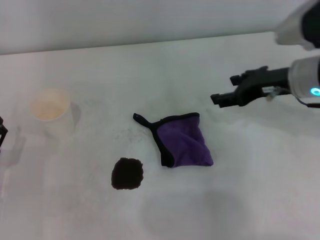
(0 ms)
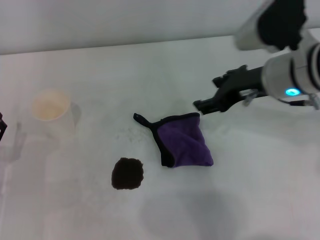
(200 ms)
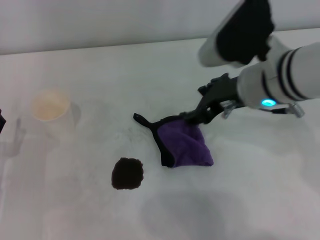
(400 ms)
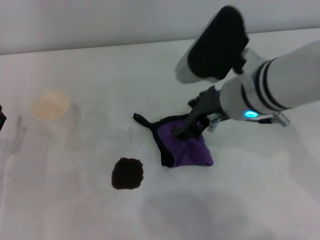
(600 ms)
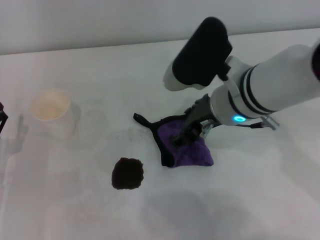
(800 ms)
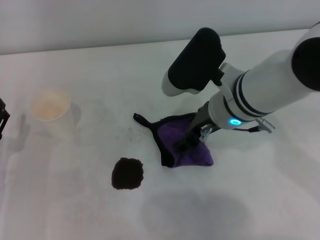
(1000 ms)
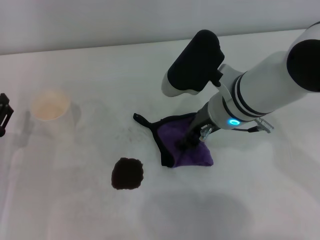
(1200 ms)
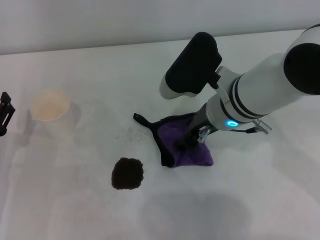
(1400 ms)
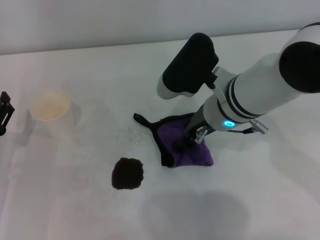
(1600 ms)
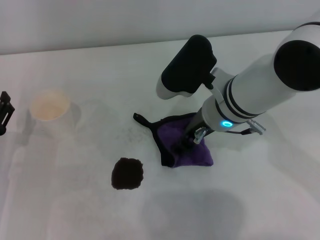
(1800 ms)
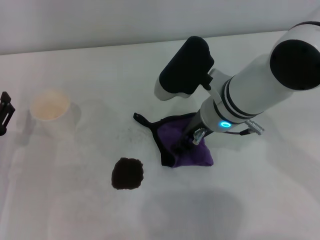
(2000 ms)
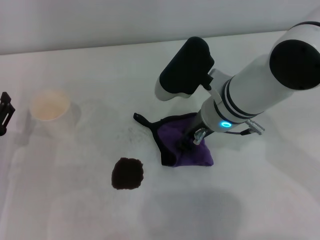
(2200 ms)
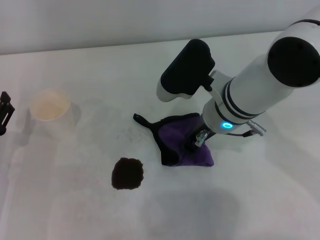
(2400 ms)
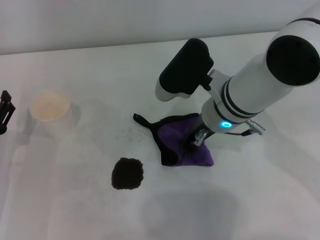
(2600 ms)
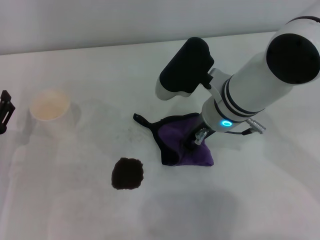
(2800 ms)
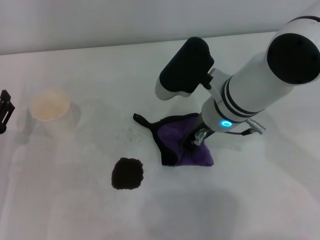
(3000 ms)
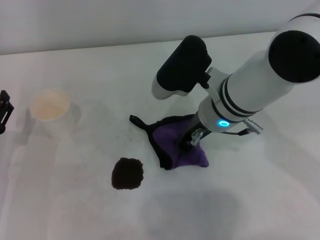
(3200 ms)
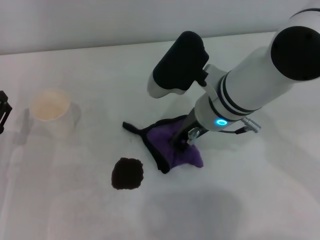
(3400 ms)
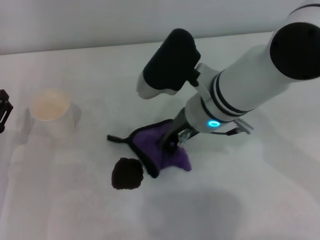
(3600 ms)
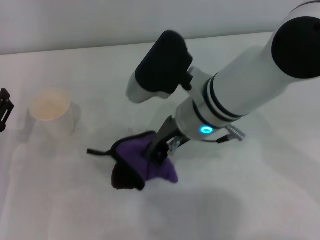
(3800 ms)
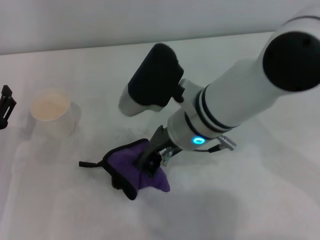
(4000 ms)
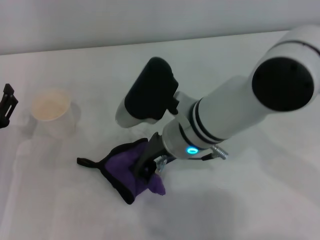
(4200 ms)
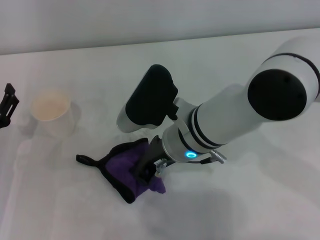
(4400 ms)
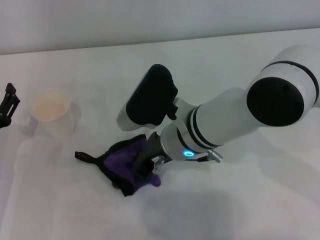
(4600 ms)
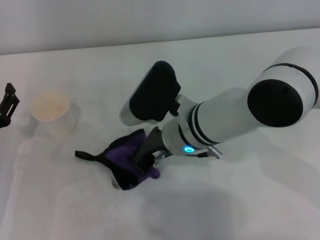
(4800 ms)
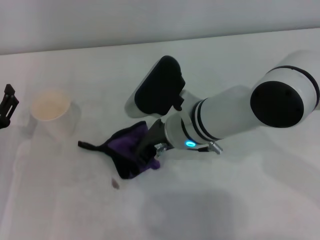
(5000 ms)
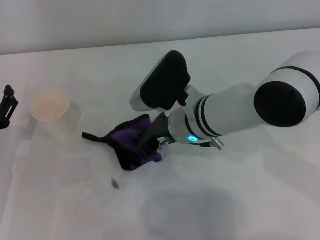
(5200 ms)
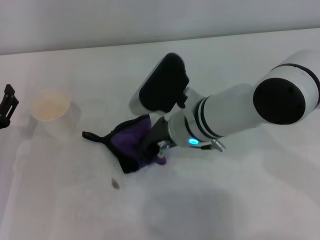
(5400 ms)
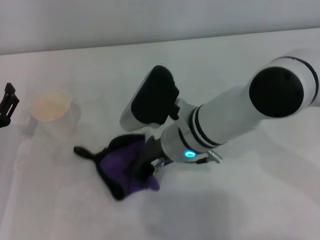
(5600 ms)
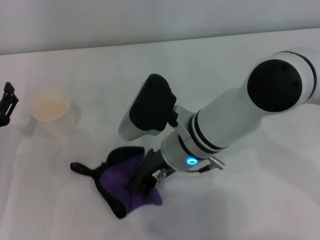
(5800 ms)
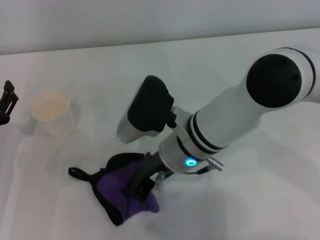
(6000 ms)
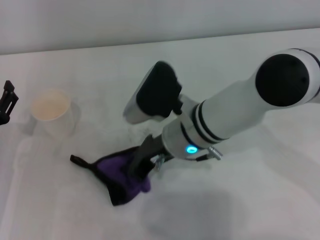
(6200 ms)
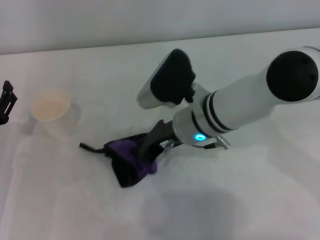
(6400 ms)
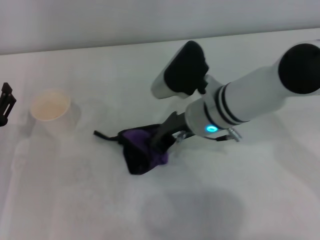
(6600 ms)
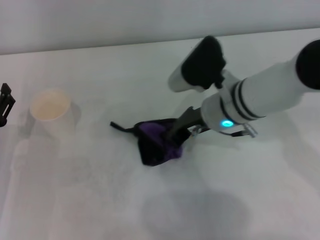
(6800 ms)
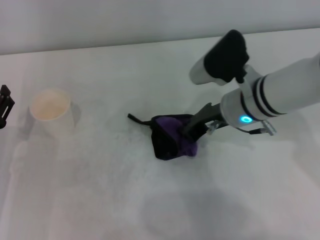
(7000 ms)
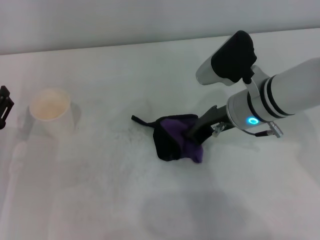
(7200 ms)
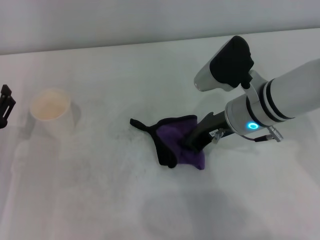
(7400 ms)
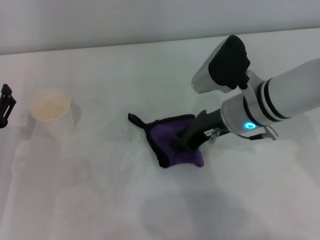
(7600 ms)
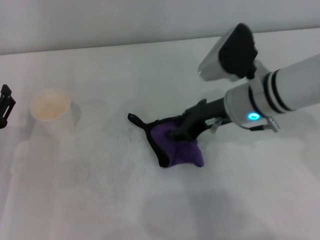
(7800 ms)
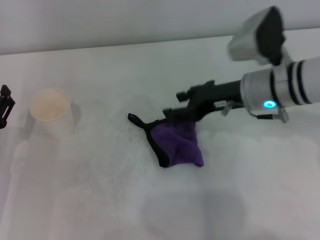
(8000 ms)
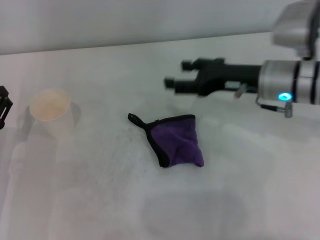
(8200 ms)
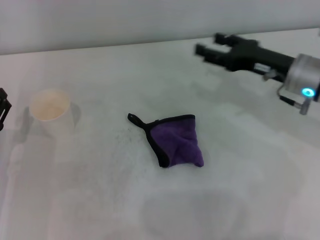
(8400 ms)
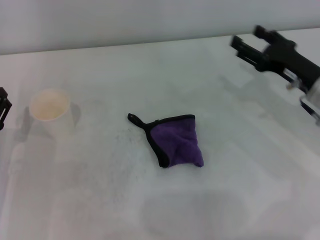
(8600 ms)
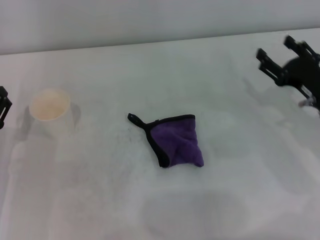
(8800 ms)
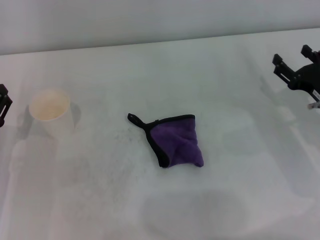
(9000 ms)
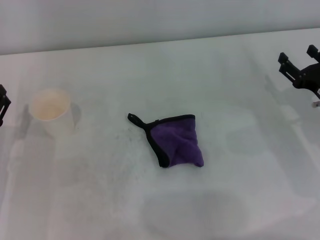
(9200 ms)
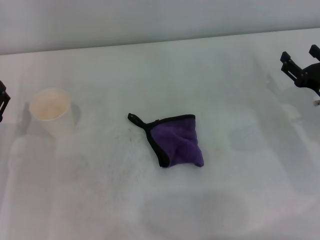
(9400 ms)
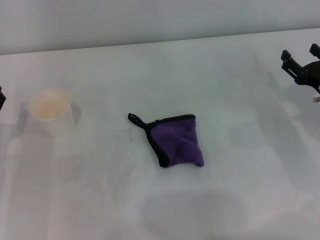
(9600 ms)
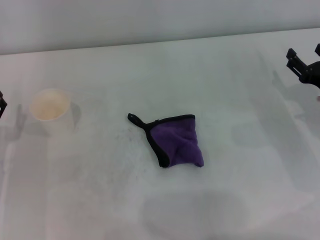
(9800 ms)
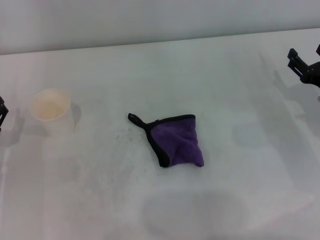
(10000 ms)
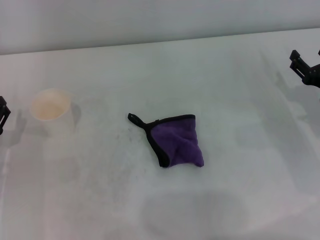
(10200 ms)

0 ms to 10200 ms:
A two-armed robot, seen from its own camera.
Step, 0 ms to 2800 ms: Grasp the rag with the right gripper.
Step, 3000 ms to 6600 ms: Wipe the stains off the table with the right gripper.
Step, 6800 ms to 7400 ms: Place the rag on the table with the right gripper.
0 ms to 1400 ms: The right gripper goes roughly 10 cm to the left.
1400 ms to 3000 ms: The right gripper closes its fingers.
3000 ms to 4400 ms: The right gripper shifts approximately 5 cm to the left.
4400 ms to 5800 ms: The grippers stay close to where they were, moving slightly.
5800 ms to 7200 ms: The right gripper moves to the right, about 10 cm.
7200 ms to 8800 ms: The right gripper is displaced to the right and downward by roughly 15 cm, and opens its fingers.
8800 ms to 10200 ms: The grippers move only a little.
